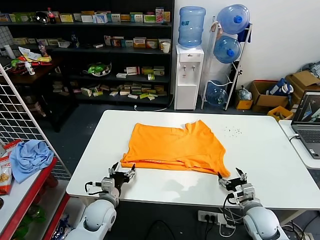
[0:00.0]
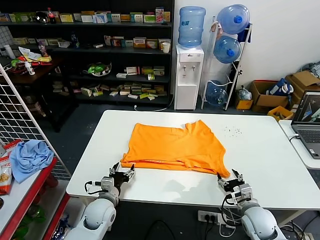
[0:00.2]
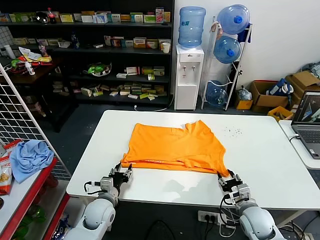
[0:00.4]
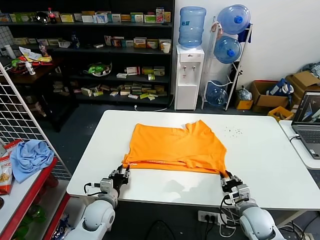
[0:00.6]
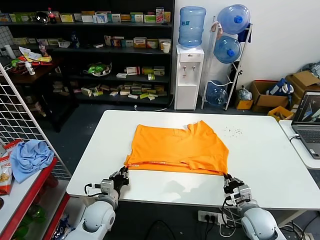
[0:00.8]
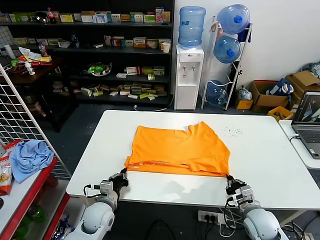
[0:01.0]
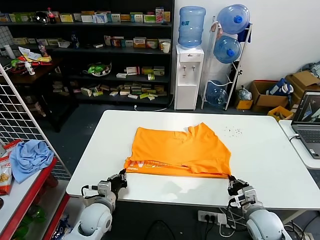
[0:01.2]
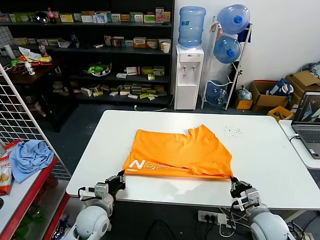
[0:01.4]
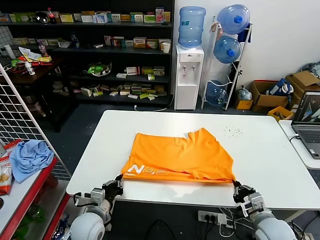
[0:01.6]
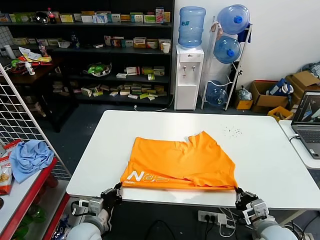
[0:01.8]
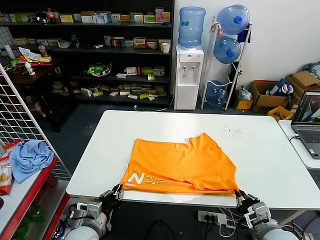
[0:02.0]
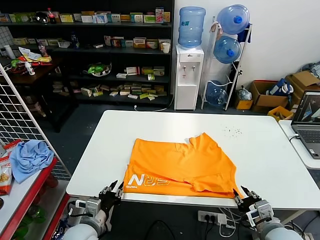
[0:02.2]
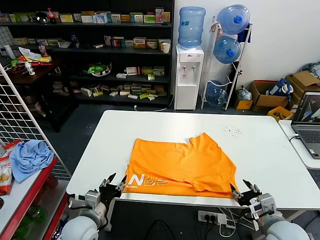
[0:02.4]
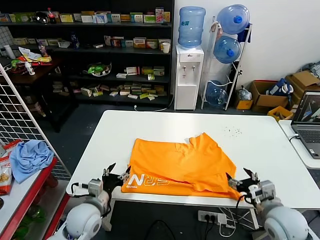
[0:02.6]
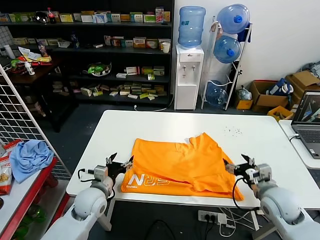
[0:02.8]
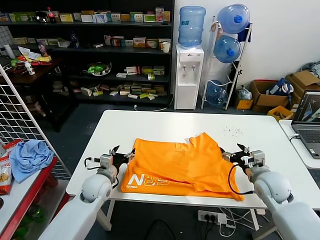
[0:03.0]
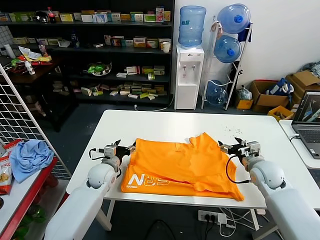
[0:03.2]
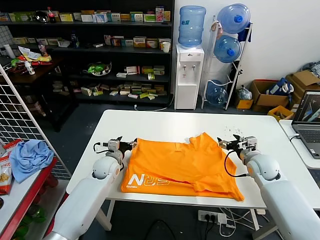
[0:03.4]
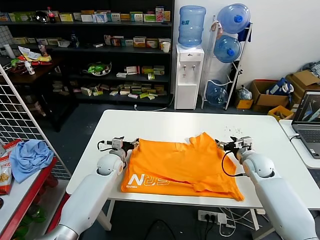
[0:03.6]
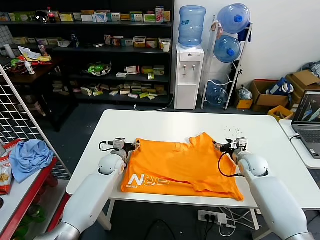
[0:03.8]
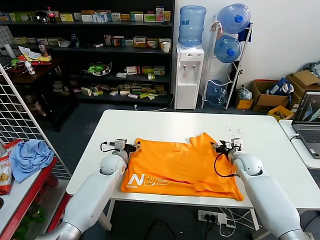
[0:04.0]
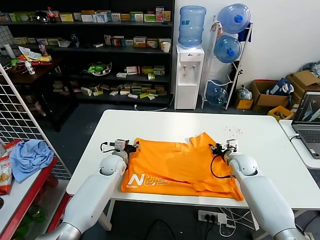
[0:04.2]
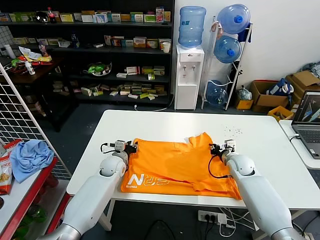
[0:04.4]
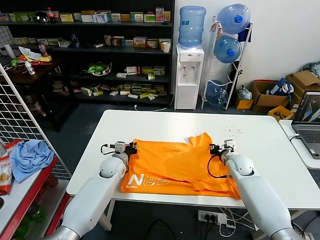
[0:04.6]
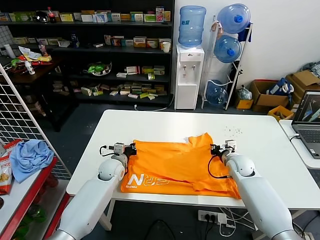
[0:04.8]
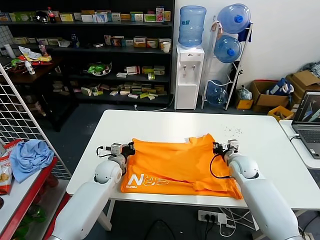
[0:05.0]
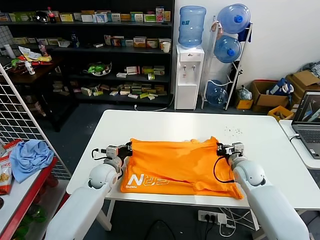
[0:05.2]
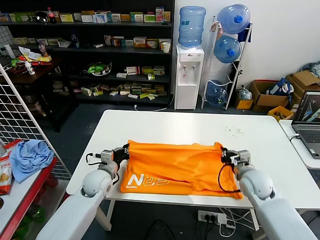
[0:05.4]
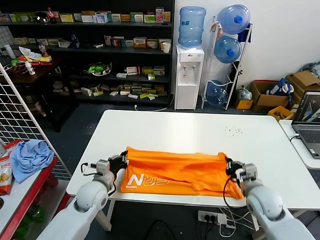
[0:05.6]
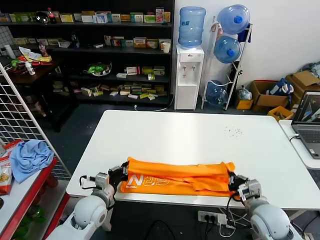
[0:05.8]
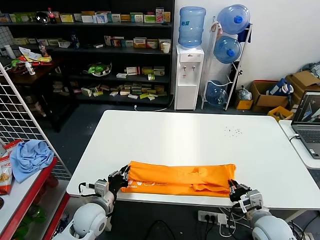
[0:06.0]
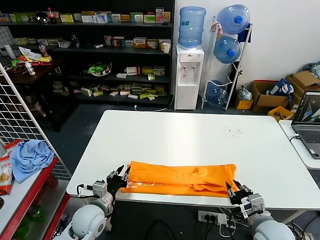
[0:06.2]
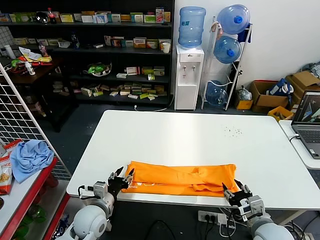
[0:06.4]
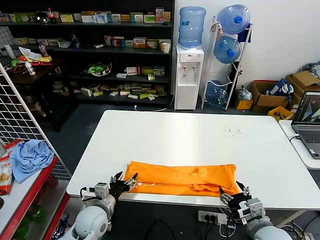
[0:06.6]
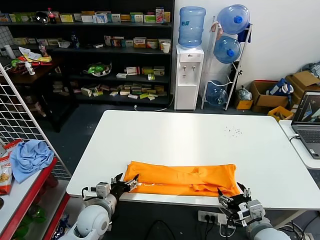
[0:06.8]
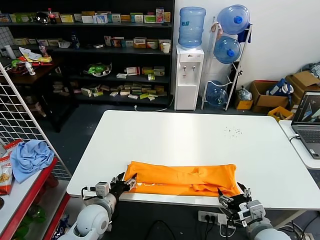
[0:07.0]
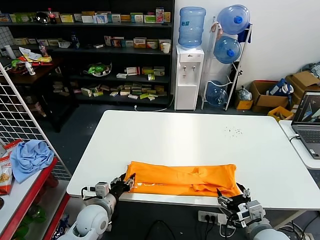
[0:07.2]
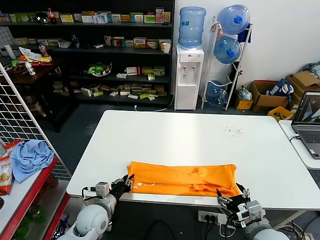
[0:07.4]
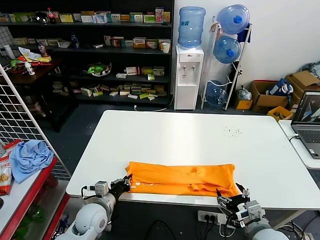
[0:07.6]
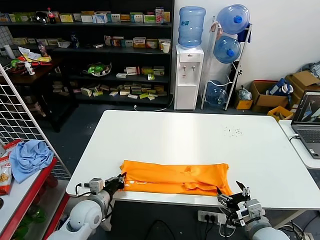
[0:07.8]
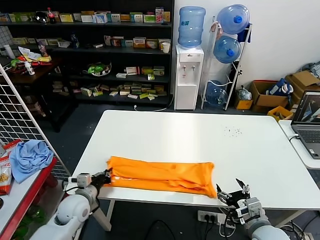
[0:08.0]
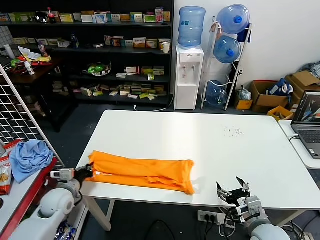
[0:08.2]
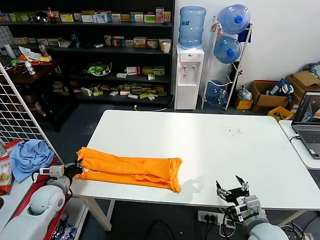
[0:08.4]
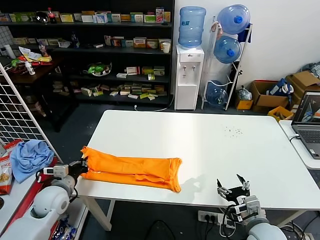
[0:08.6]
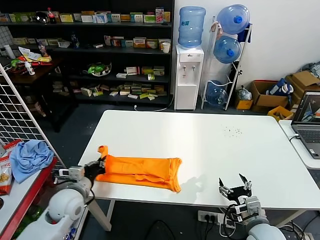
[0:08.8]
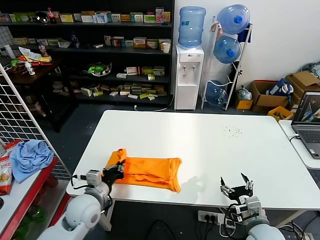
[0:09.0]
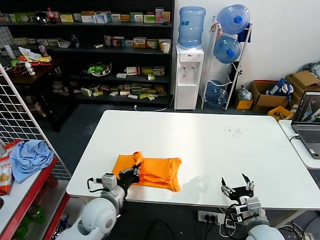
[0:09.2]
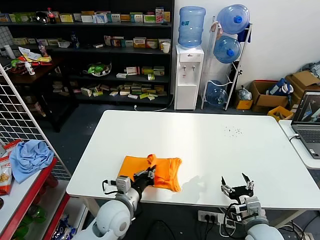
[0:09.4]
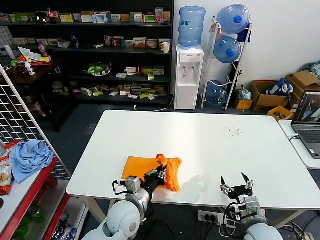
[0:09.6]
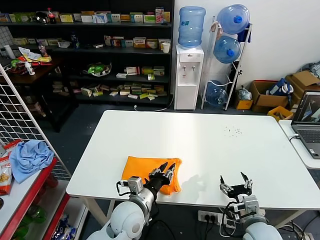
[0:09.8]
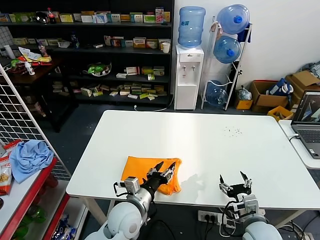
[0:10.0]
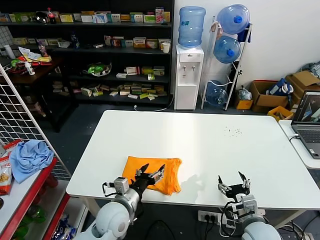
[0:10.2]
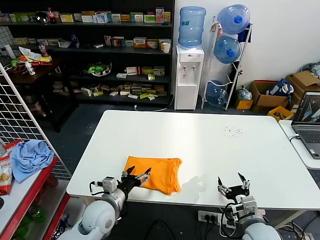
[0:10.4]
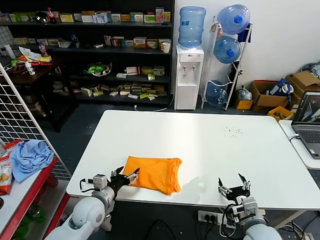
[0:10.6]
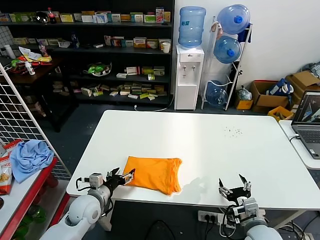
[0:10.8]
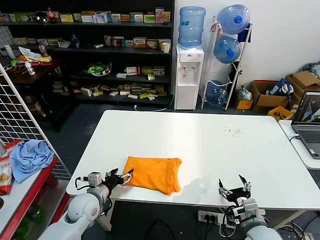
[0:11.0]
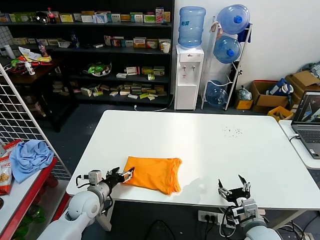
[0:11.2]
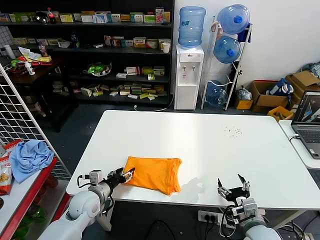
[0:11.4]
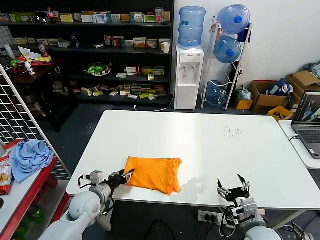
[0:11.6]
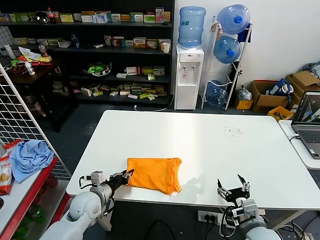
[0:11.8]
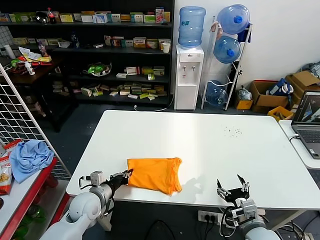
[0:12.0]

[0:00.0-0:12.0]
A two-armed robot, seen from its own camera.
Task of the whole recording: fold and organize the clothes.
Step, 0:00.0 to 0:02.2: Drag the clothes downward with both gripper.
Step, 0:02.6 to 0:05.0: use both grippers simultaneously to clamp the upper edge of the clothing fabric.
Step, 0:05.2 to 0:06.4: use both grippers to drag the upper edge of the fabric backward and fold it over the lower edge.
Step, 0:06.8 to 0:07.8: use the left gripper to clamp the left edge of the fabric.
Step, 0:08.0 to 0:10.0: use the left gripper to drag the left edge of the fabric to the left and folds it over the right edge.
0:00.0 to 0:01.6: The left gripper changes place by some 5 cm, and closes up, while the right gripper travels backward by roughly 5 cm, and closes.
0:01.6 to 0:03.0: The left gripper moves forward, roughly 10 cm, and opens its fingers. Meanwhile the right gripper shifts approximately 15 cm forward and upward, and opens.
0:03.0 to 0:04.4: The left gripper heads forward, covering about 10 cm, and closes up, while the right gripper is displaced forward and downward by about 15 cm, and closes up.
0:04.4 to 0:06.0: The grippers both shift backward by some 20 cm.
0:06.0 to 0:07.6: The right gripper opens. The left gripper opens and closes again.
0:07.6 to 0:09.0: The left gripper is displaced upward by roughly 5 cm, and moves roughly 15 cm to the left and comes back.
0:09.0 to 0:10.4: The left gripper shifts about 5 cm to the right, and opens up.
0:10.4 to 0:12.0: The left gripper shifts some 5 cm to the left, and closes up.

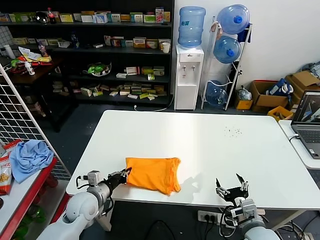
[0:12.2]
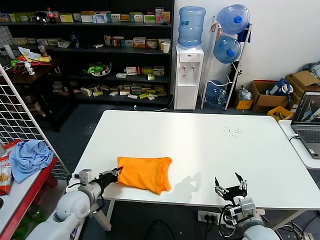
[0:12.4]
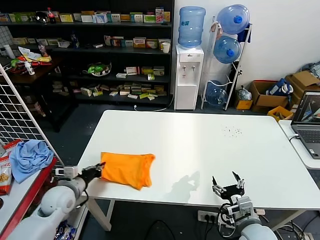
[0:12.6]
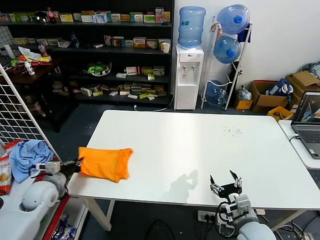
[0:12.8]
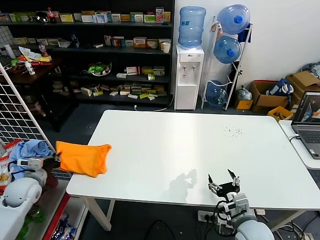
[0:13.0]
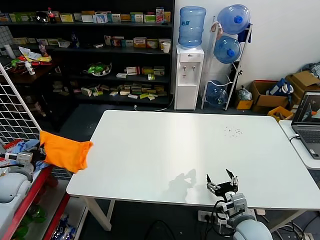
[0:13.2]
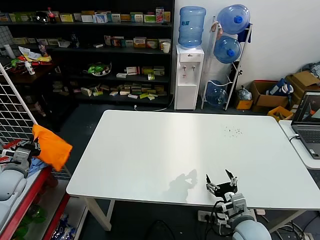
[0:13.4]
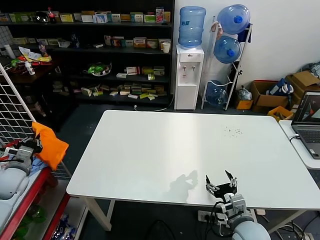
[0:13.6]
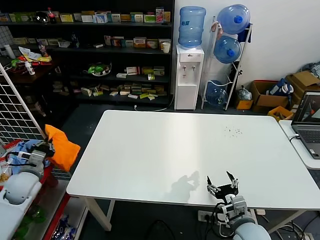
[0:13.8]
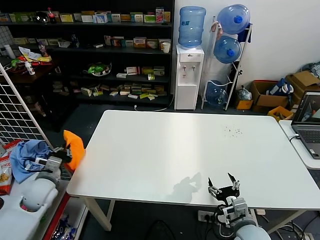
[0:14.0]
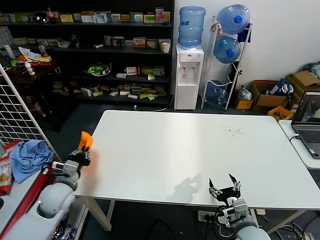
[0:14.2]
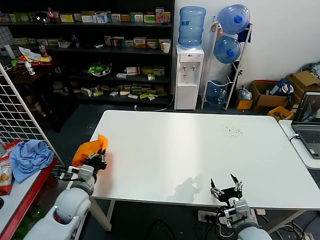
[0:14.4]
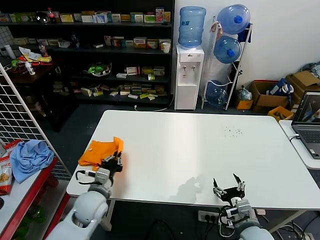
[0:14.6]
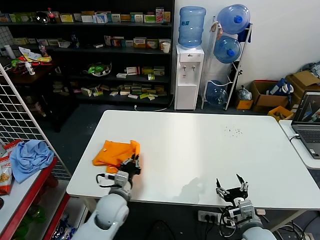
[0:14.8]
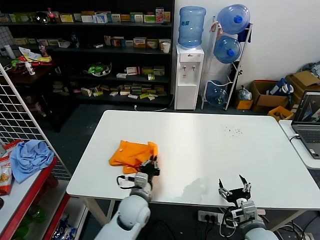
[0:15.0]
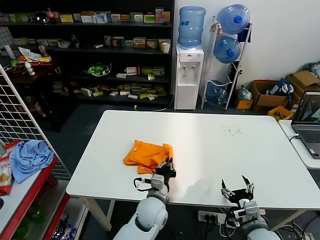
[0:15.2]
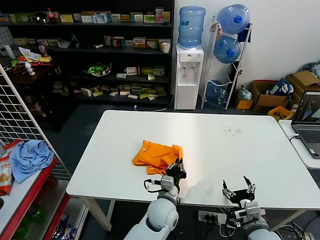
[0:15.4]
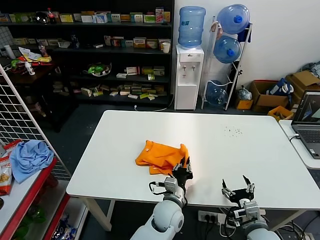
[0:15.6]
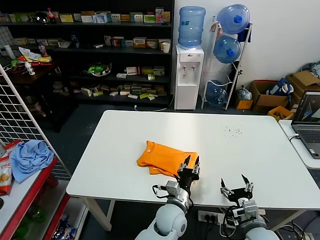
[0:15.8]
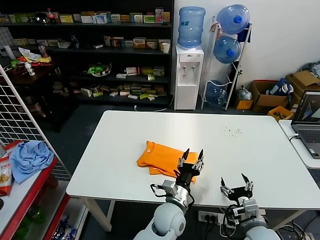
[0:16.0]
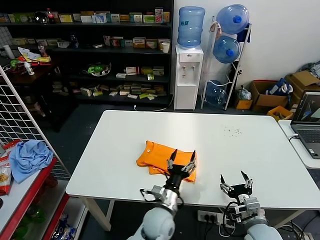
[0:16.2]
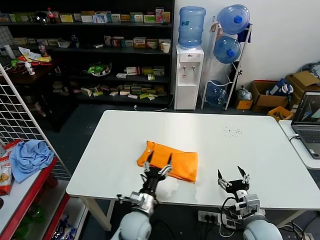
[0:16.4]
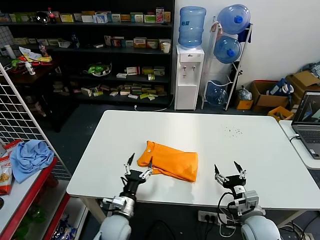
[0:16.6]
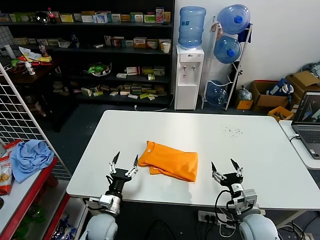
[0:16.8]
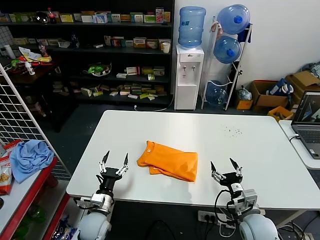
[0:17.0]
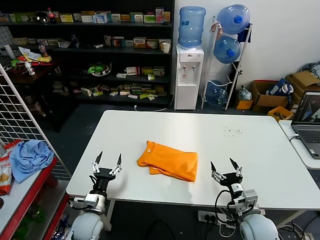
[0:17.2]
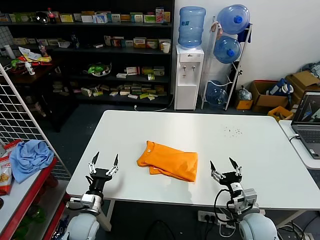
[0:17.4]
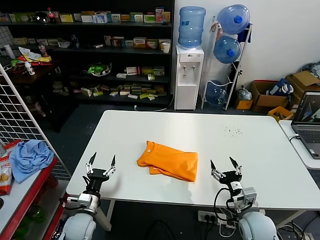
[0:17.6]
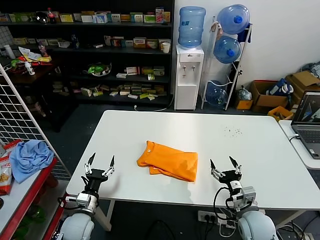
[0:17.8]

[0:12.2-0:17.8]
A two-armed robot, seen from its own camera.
Task of the whole recording: fold and organize the clothes.
Step, 0:12.2 to 0:16.0: Flip the folded clothes over with left gripper.
0:12.2 to 0:13.6: The left gripper shifts approximately 25 cm to the left.
0:13.6 to 0:15.0: The left gripper shifts some 40 cm to the right.
0:15.0 to 0:16.4: The left gripper heads to the right, covering roughly 5 cm, and opens.
0:16.4 to 0:17.8: The left gripper is displaced to the left by roughly 20 cm.
